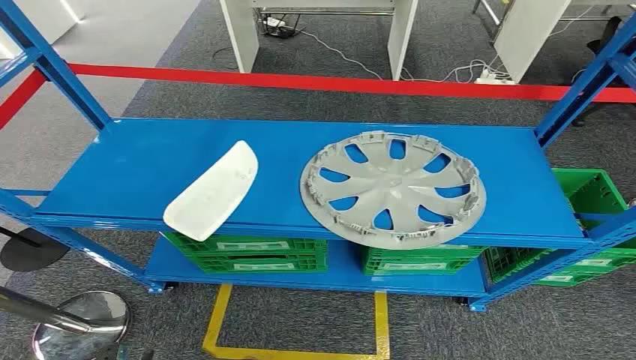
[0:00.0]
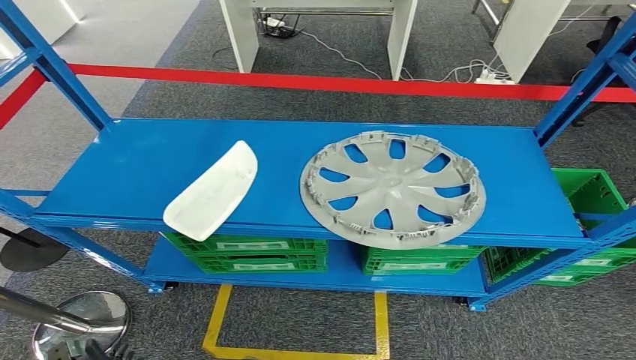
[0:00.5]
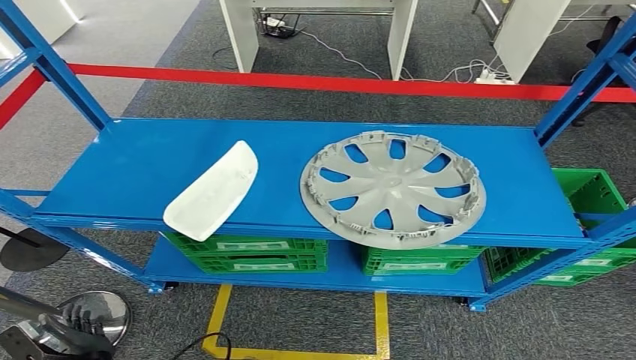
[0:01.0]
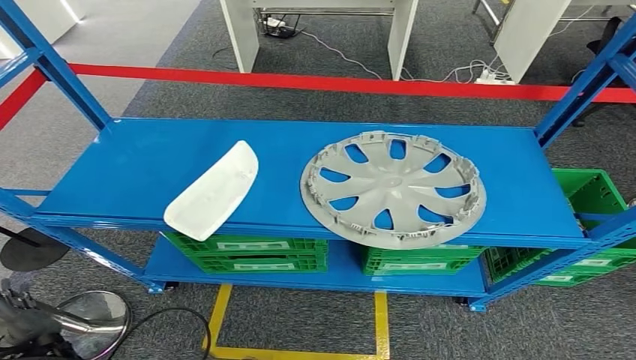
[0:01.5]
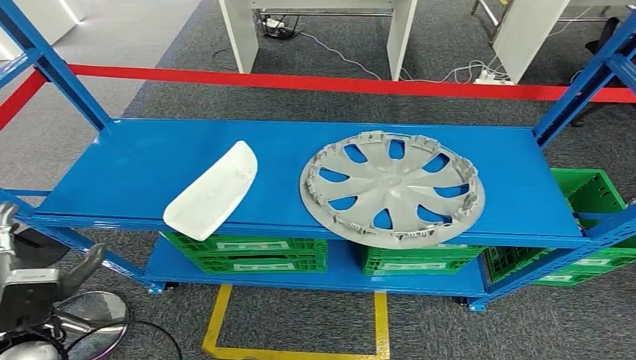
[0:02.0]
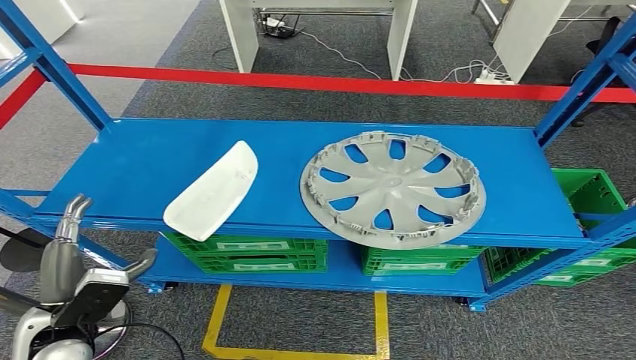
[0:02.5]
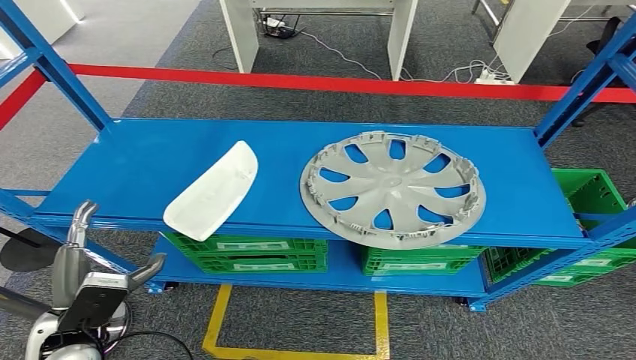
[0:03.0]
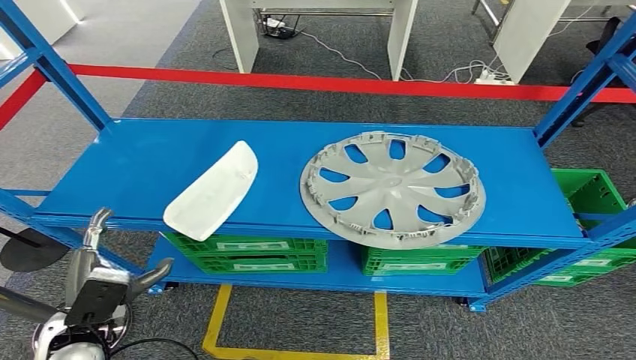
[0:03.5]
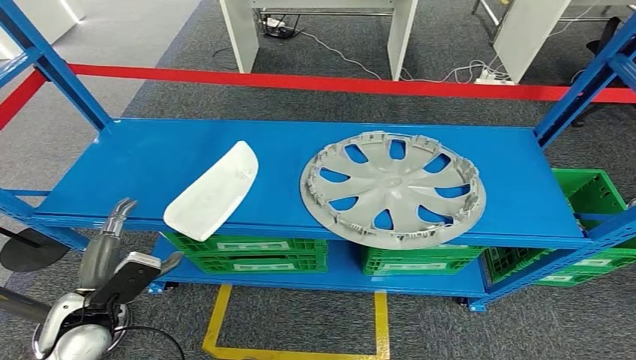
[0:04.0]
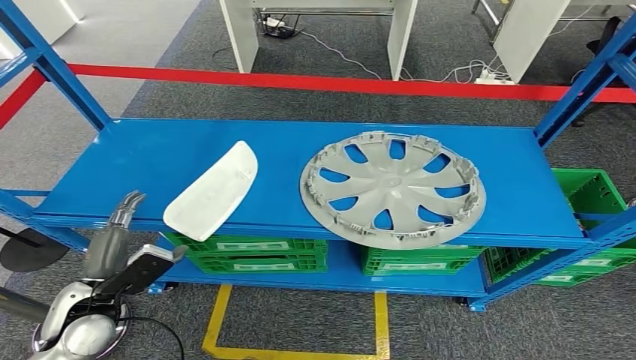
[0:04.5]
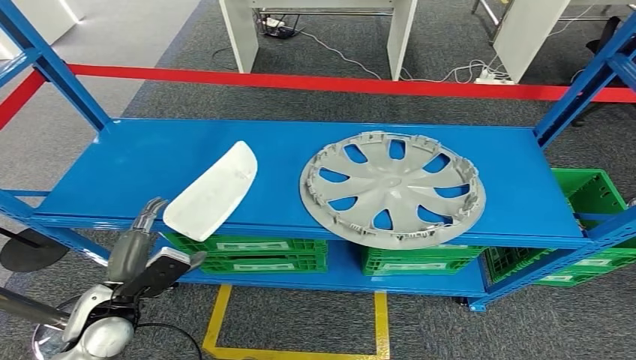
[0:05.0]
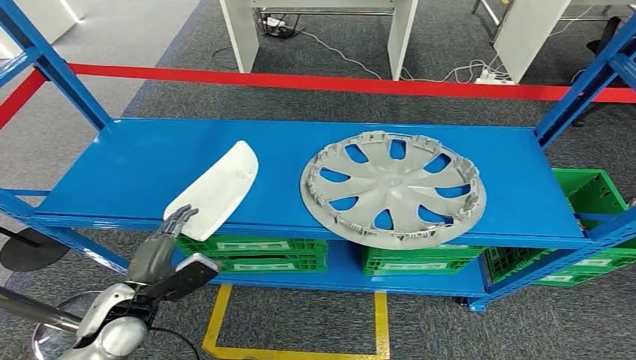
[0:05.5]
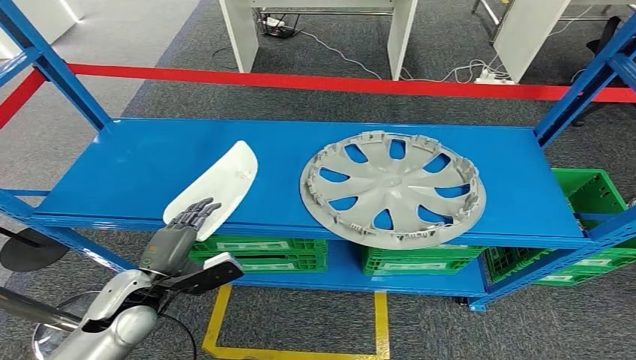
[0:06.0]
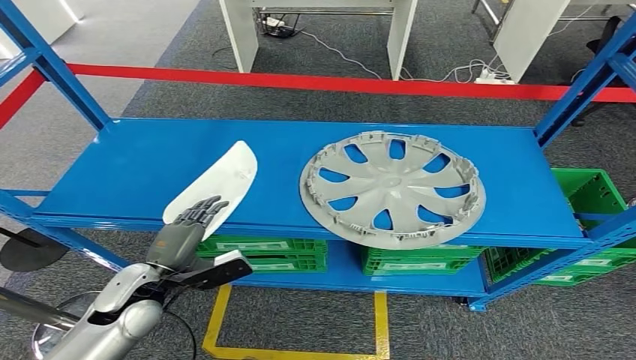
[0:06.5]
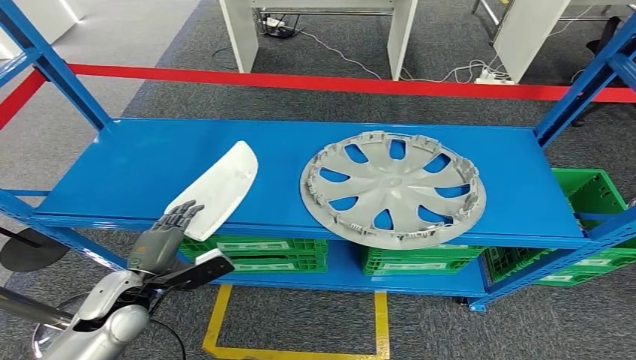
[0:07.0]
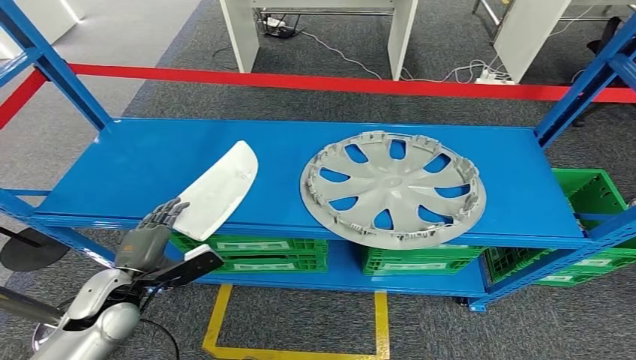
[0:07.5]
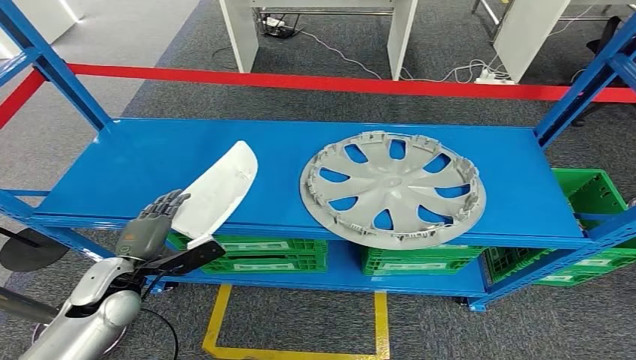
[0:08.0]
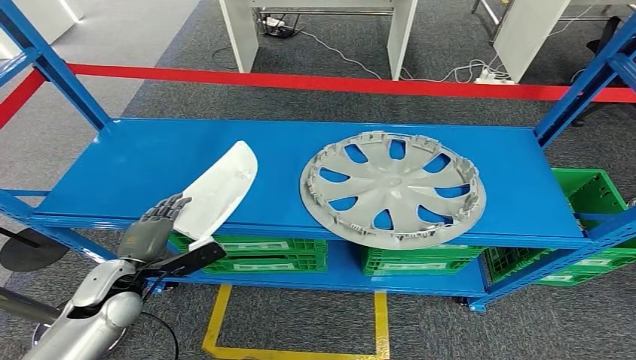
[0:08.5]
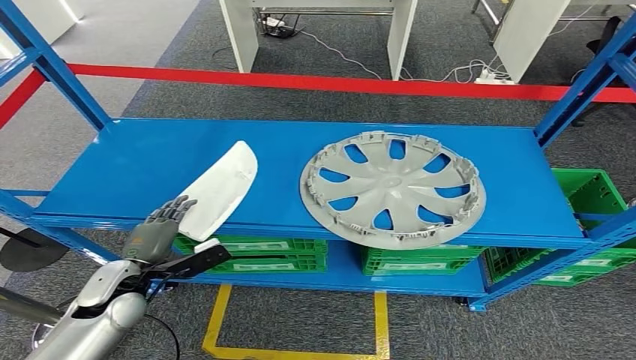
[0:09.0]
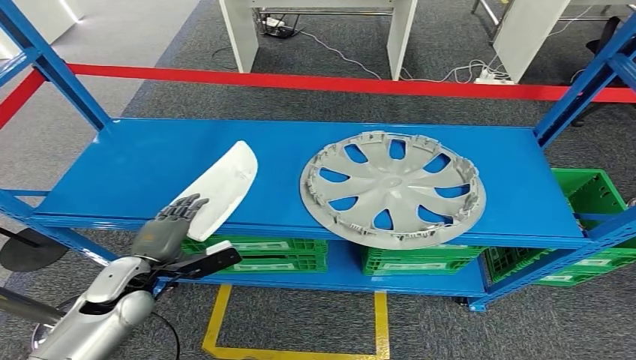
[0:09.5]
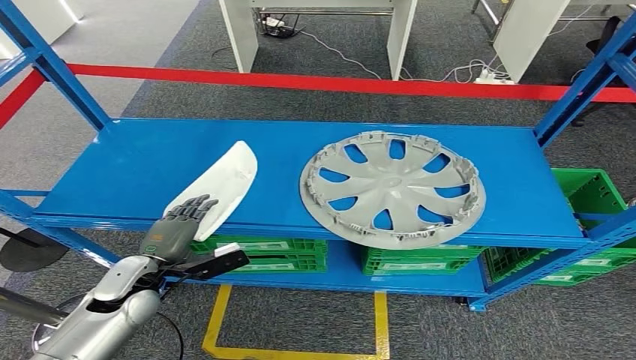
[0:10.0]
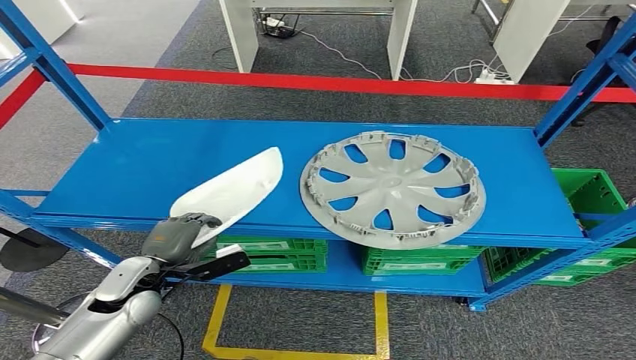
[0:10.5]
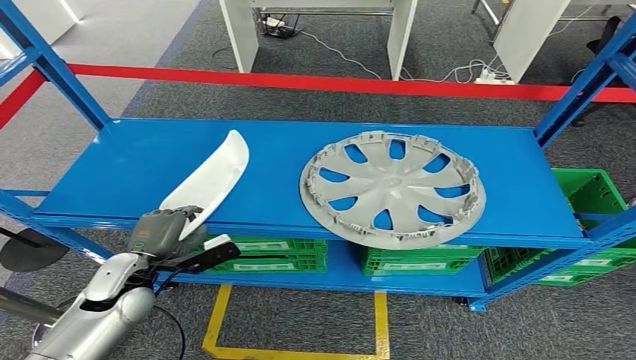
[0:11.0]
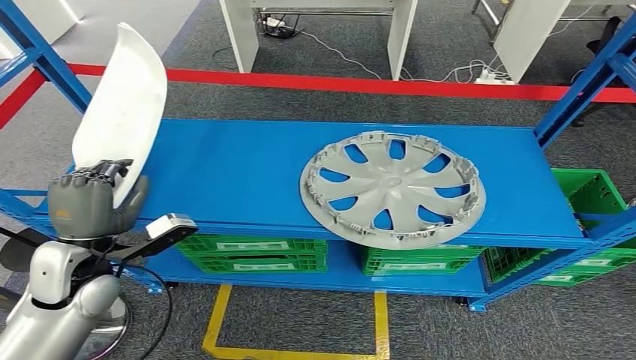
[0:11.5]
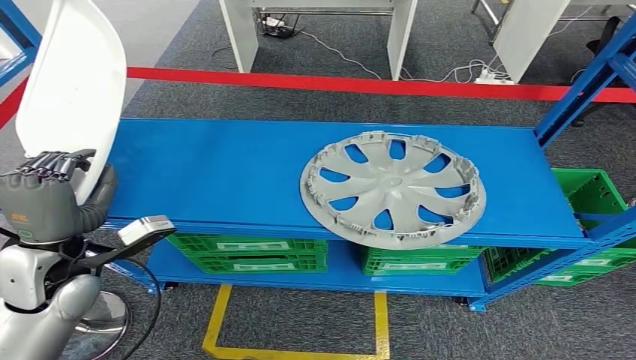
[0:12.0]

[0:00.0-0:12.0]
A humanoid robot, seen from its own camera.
0:02.0 to 0:04.0: The left hand moves about 5 cm.
0:04.0 to 0:06.0: The left hand ends up about 5 cm from where it was.
0:06.0 to 0:10.0: The hands move only a little.
0:10.0 to 0:12.0: The left hand shifts approximately 15 cm upward.

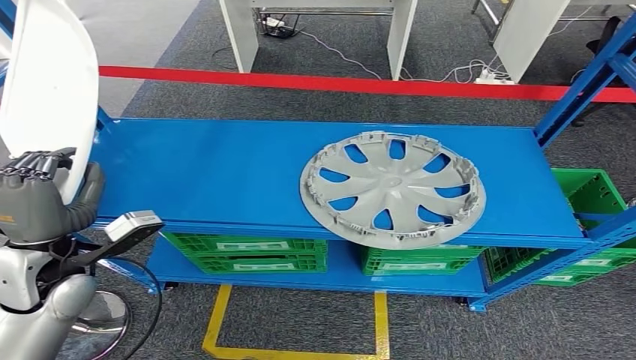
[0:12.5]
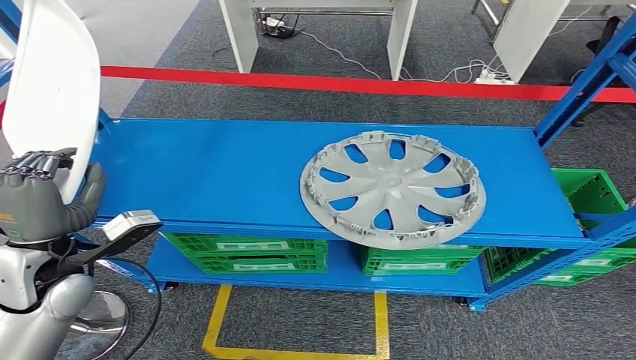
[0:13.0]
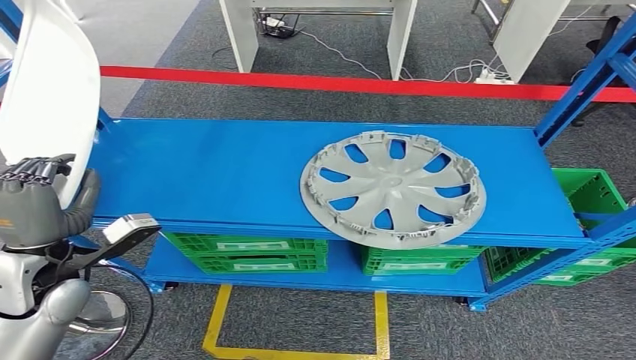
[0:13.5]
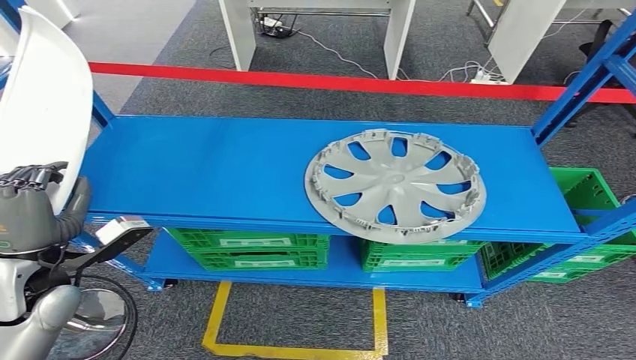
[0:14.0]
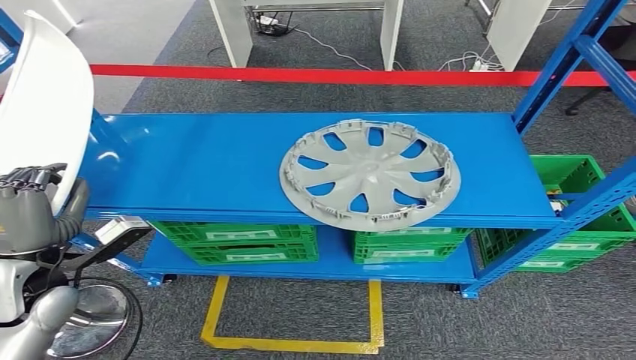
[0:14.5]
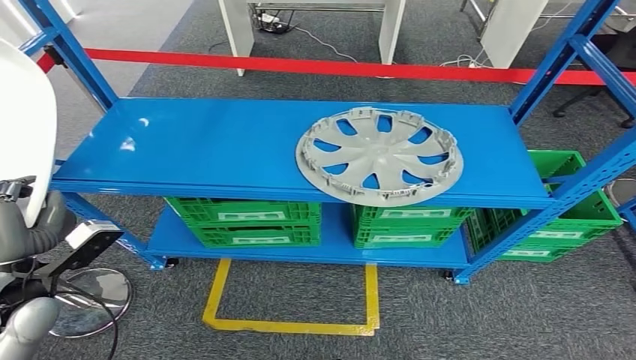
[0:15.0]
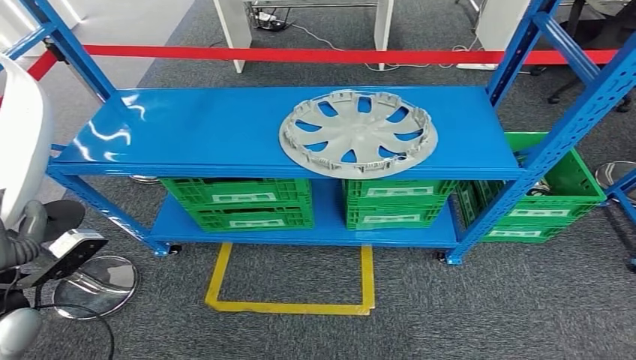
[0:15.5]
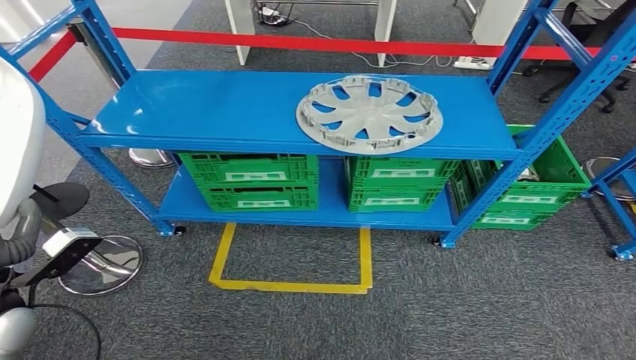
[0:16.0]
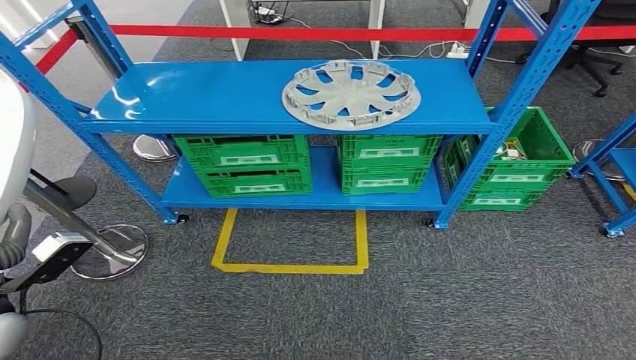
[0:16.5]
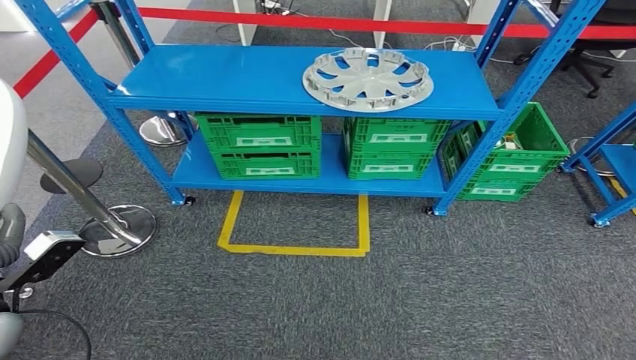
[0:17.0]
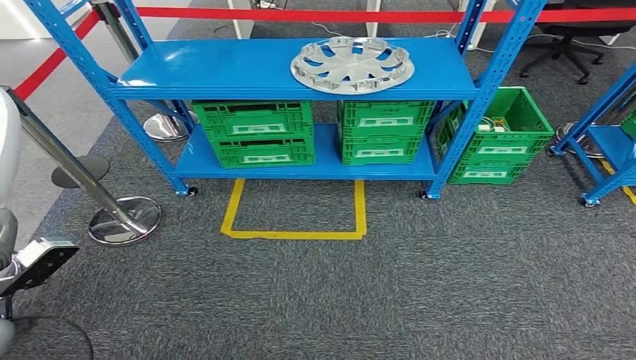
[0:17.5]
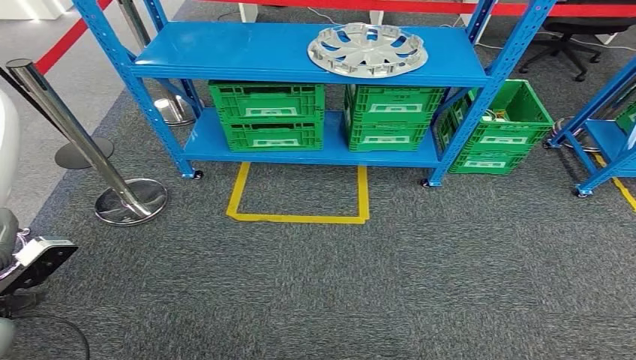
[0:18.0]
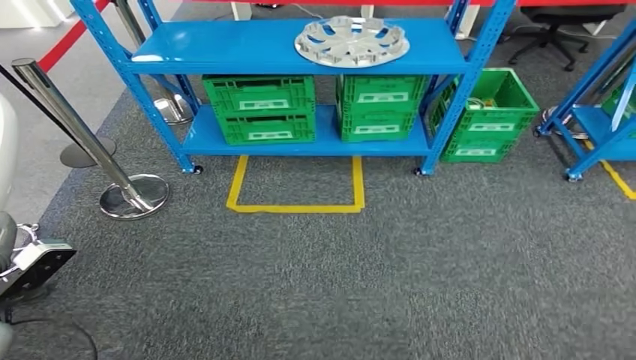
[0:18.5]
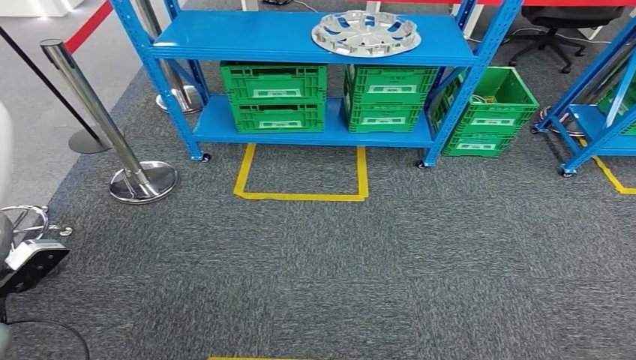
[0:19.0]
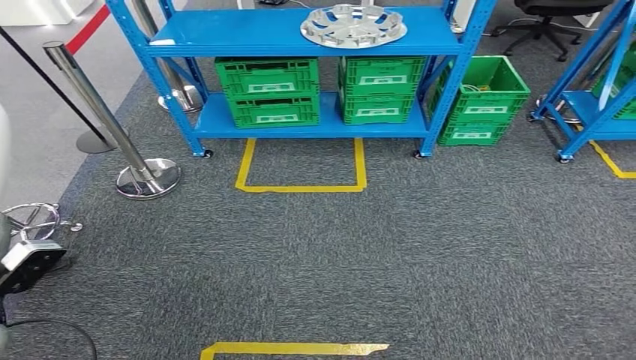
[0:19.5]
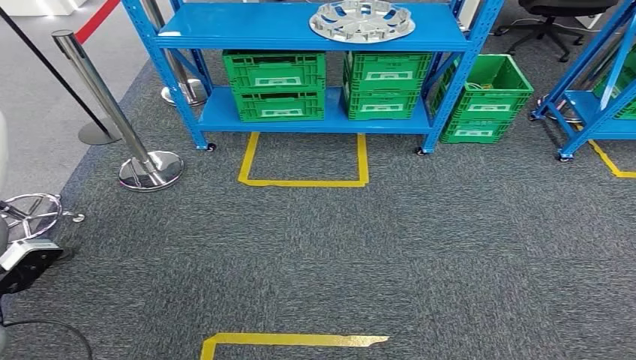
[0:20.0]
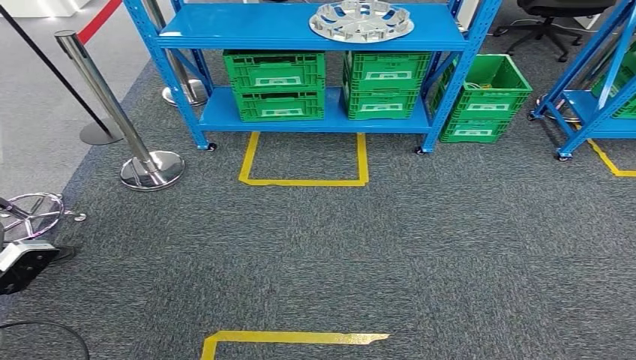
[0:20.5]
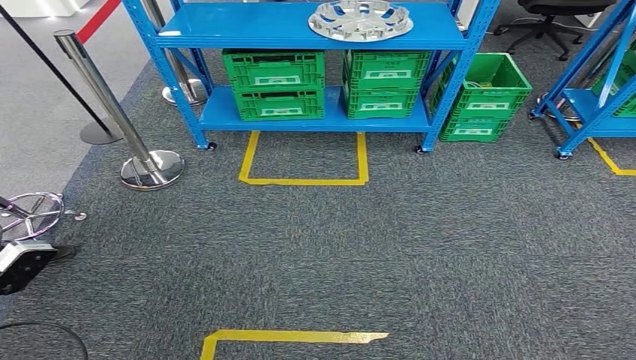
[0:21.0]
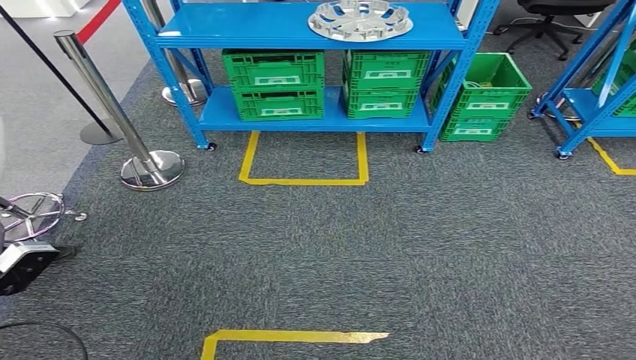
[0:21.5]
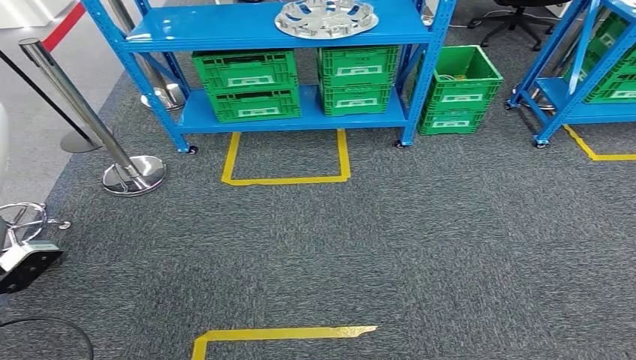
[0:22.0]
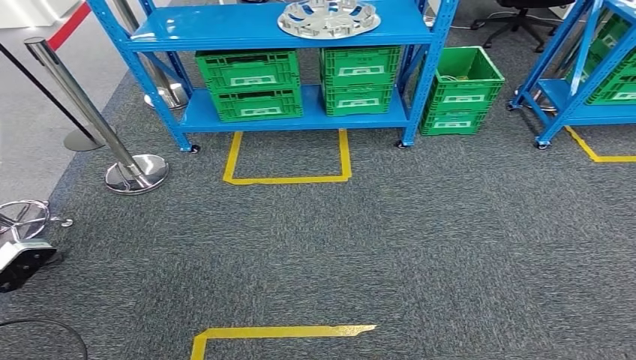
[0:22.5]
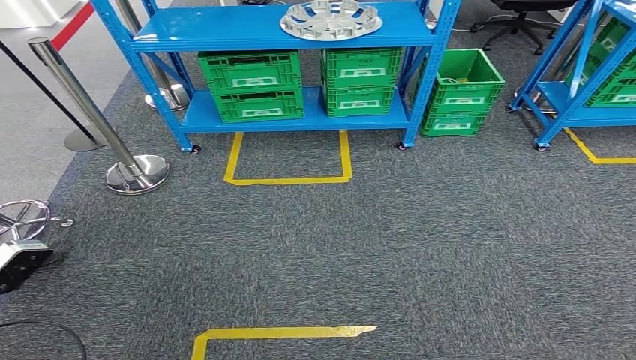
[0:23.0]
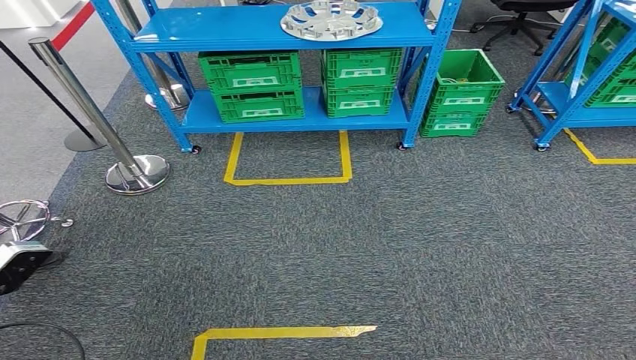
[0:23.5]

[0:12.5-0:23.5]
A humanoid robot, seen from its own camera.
0:20.0 to 0:21.5: Both hands stay about where they are.
